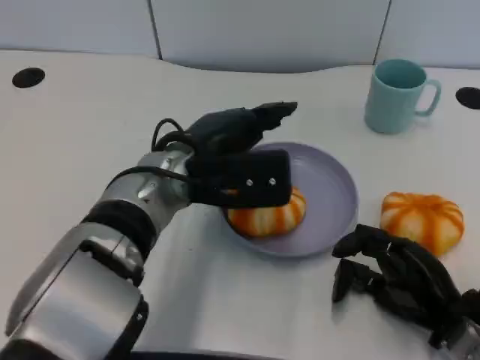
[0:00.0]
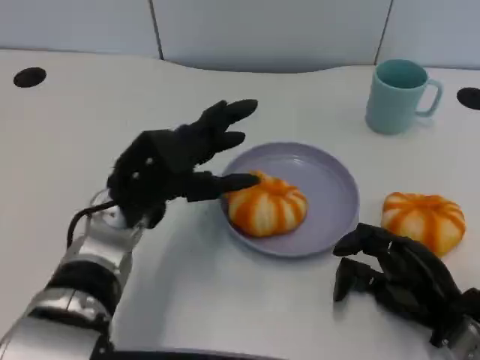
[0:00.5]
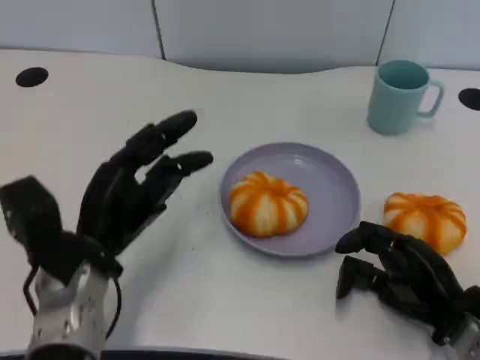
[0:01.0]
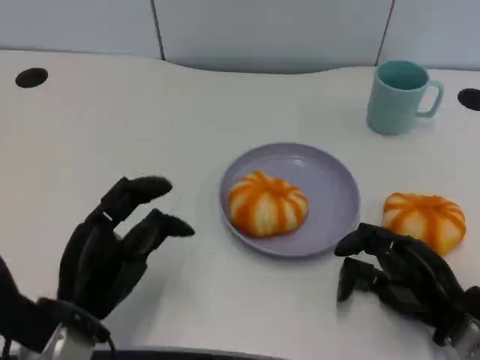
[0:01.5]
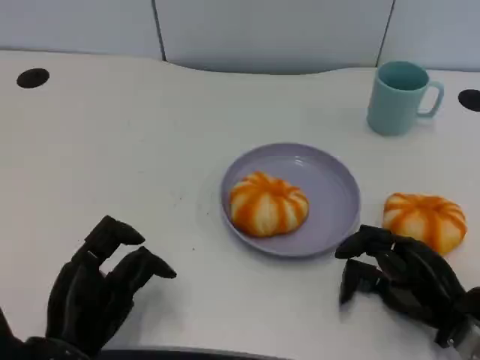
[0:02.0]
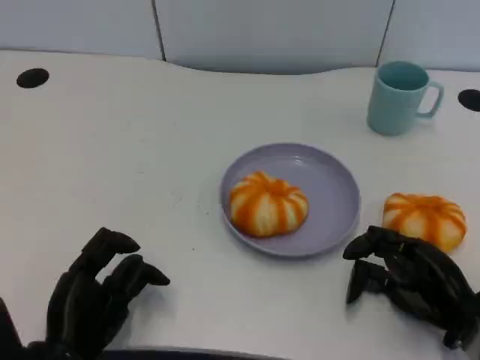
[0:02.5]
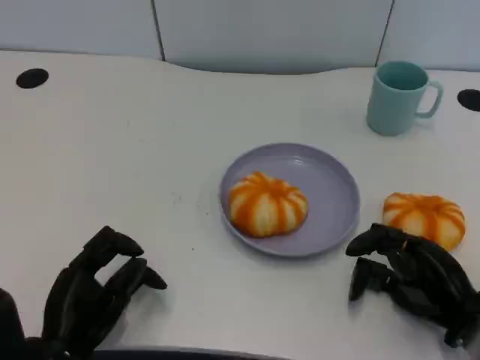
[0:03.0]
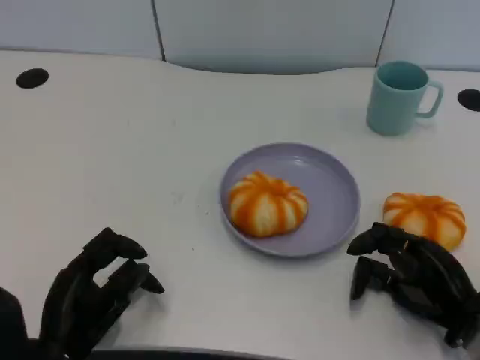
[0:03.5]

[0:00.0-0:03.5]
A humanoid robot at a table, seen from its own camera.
Task of the whole recording: Grasp the bread from the table and place it into the plate.
0:00.0 to 0:02.0: The left hand shifts roughly 20 cm backward, to the left and downward.
0:02.0 to 0:03.5: The hands move only a little.
